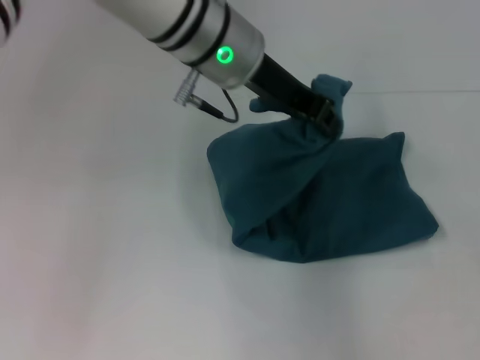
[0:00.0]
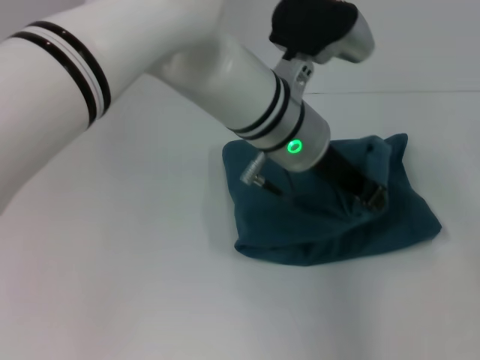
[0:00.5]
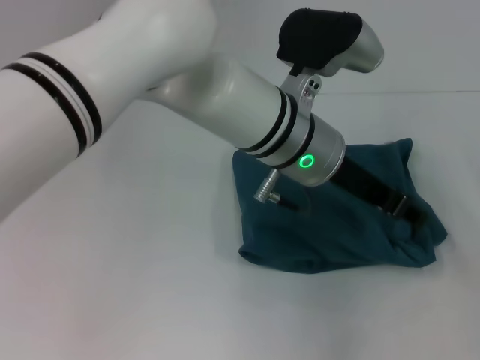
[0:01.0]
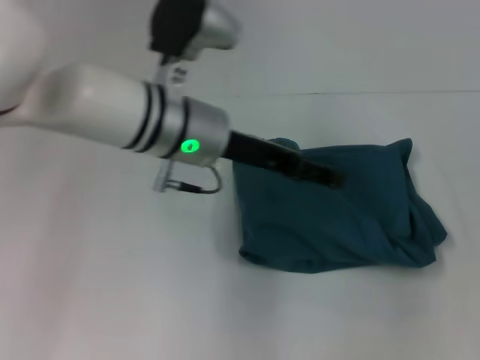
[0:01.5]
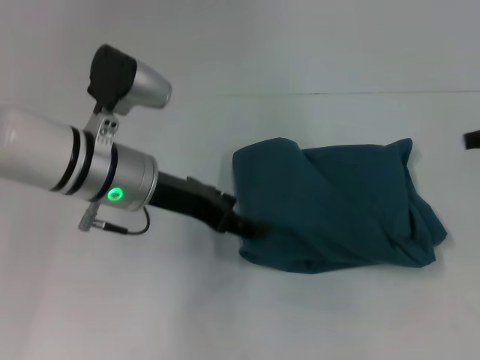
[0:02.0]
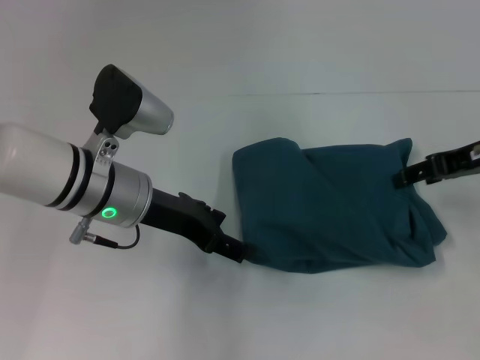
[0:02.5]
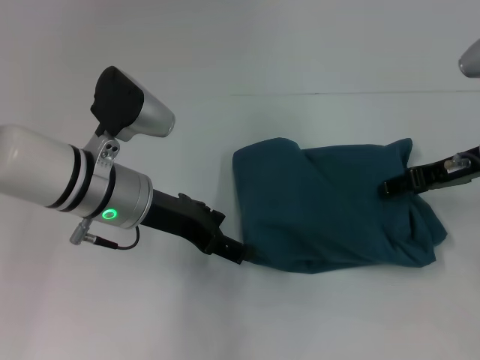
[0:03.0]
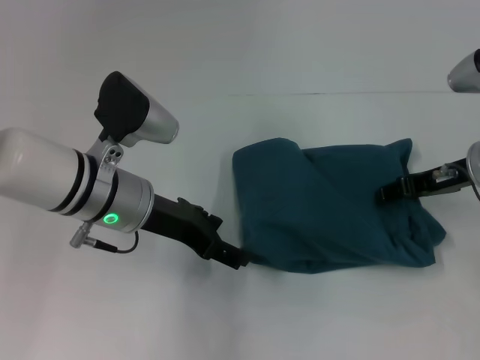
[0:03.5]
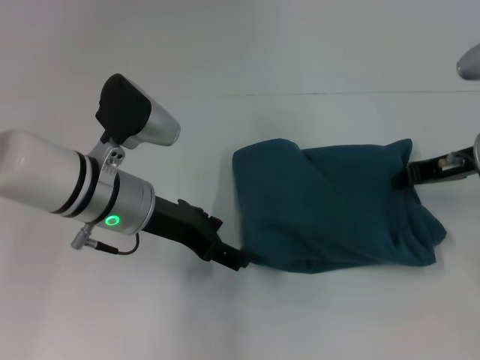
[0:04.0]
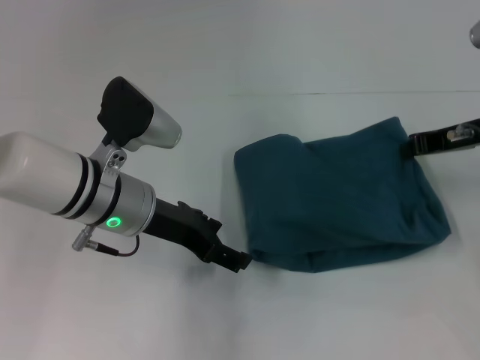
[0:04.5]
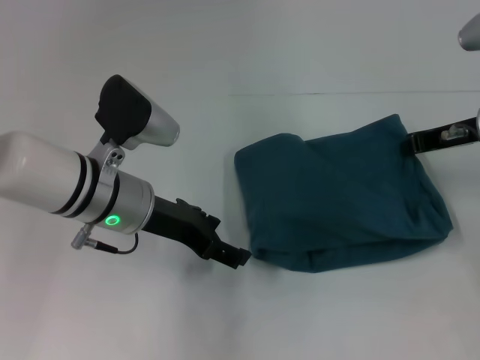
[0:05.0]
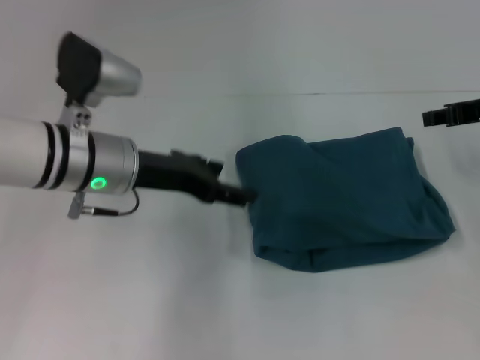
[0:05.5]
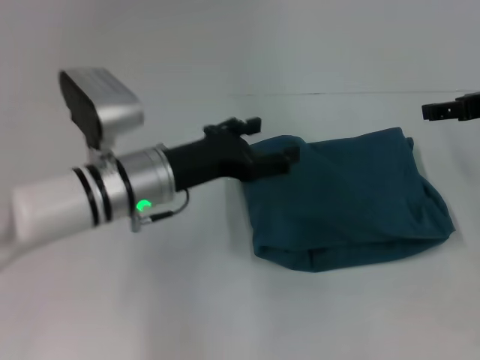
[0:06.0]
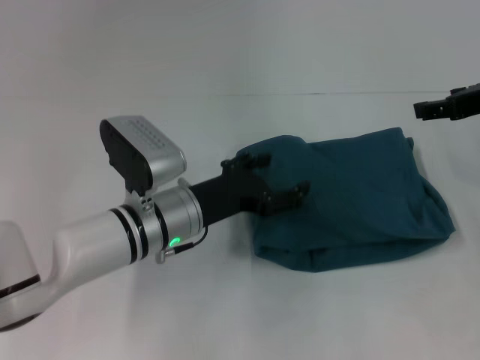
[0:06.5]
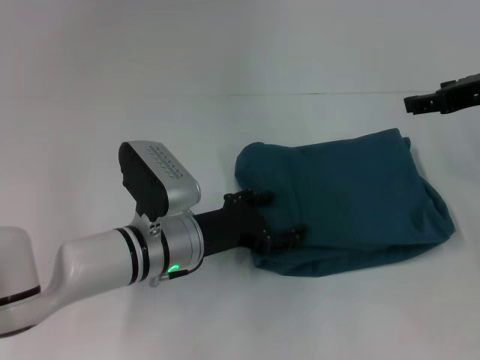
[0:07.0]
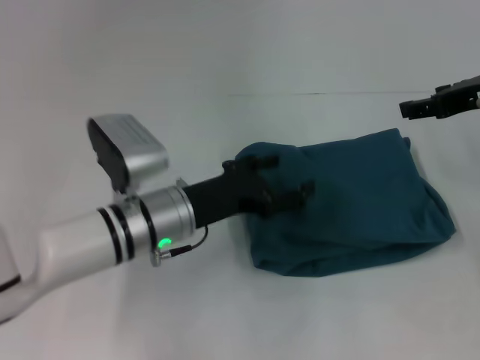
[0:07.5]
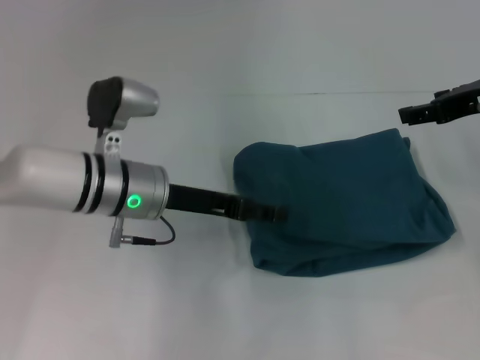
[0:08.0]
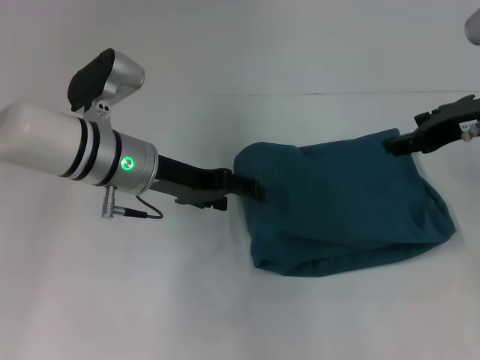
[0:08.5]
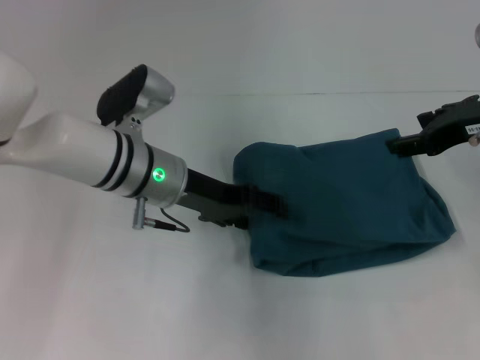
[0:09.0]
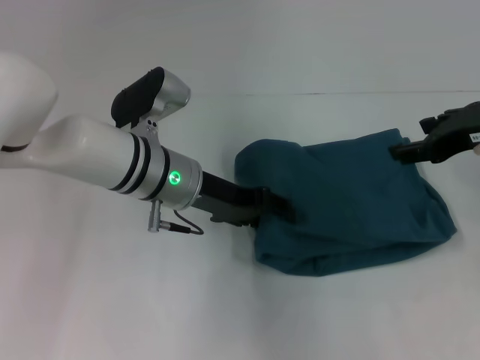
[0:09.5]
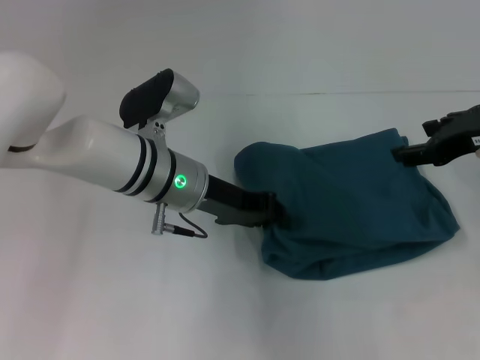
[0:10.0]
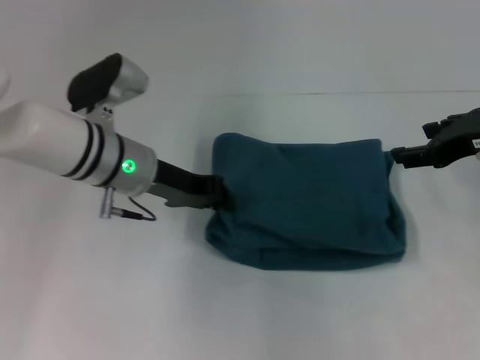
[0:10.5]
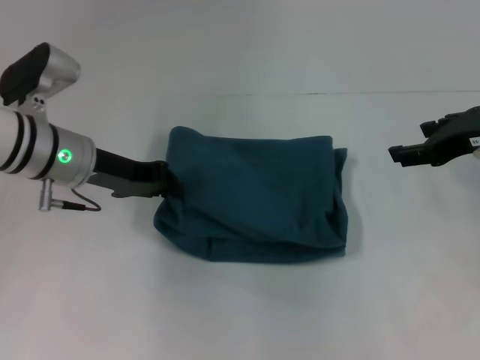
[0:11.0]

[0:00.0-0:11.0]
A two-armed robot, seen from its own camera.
Step, 0:00.0 to 0:01.0: Fold the clothes to the left.
0:00.0 to 0:02.0: The left gripper shifts roughly 15 cm downward, to the left and backward, and opens; the right gripper is displaced upward, to the left and forward by about 20 cm.
0:02.0 to 0:03.5: The right gripper is displaced downward and to the left by approximately 15 cm, and opens up.
0:03.5 to 0:05.5: The right gripper heads upward, covering approximately 5 cm, and closes.
0:05.5 to 0:07.5: The left gripper shifts roughly 10 cm downward. Meanwhile the right gripper opens its fingers.
0:07.5 to 0:09.0: The left gripper moves forward, about 5 cm.
0:09.0 to 0:11.0: The left gripper goes about 10 cm to the left, and closes up.

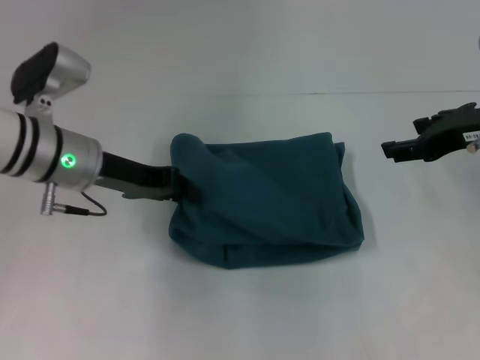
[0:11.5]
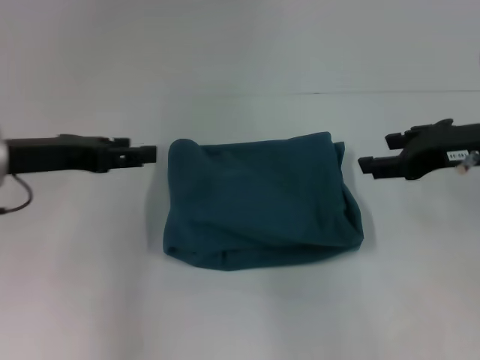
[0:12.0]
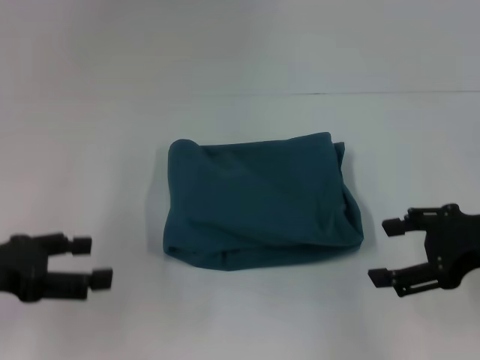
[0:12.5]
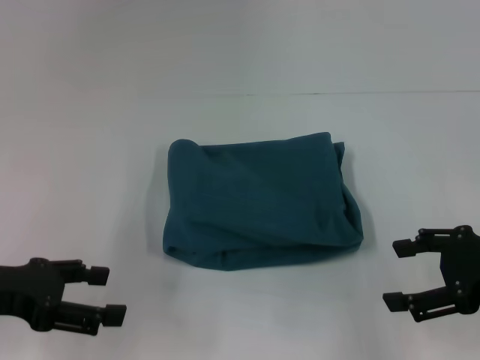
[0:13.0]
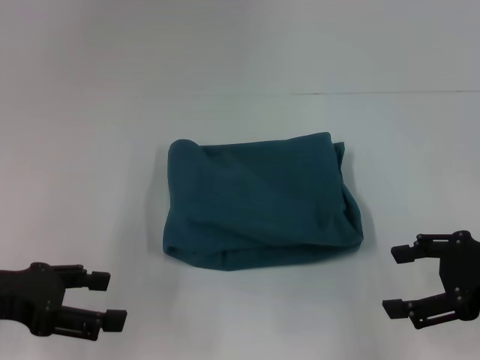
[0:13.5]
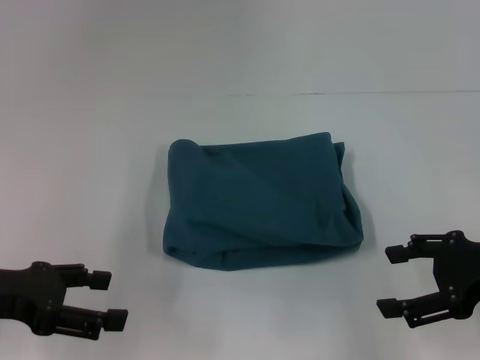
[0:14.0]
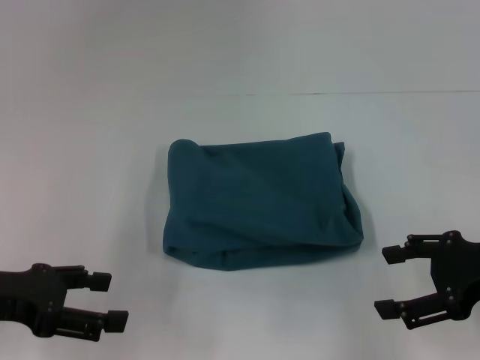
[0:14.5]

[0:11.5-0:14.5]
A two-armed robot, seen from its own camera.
0:11.5 to 0:13.0: The right gripper shifts roughly 10 cm backward; the left gripper shifts some 15 cm backward and to the left, and opens.
0:13.0 to 0:14.5: Both grippers stay put.
